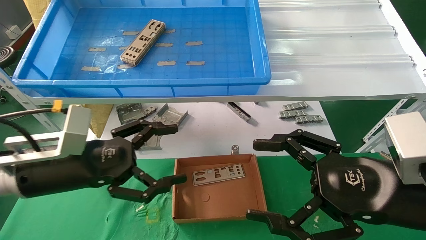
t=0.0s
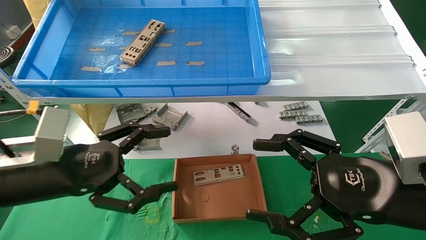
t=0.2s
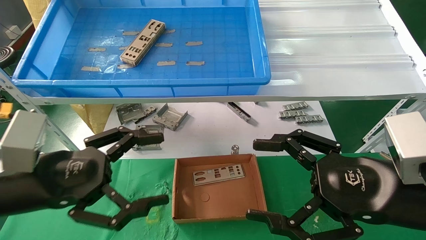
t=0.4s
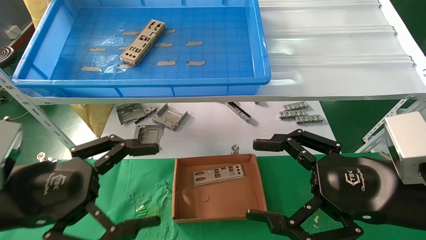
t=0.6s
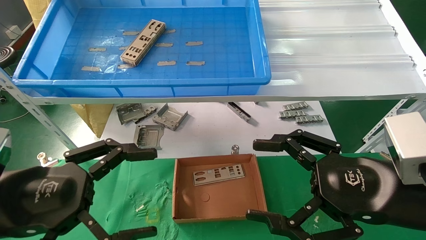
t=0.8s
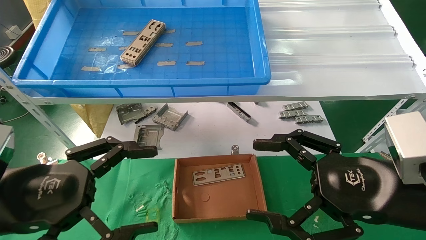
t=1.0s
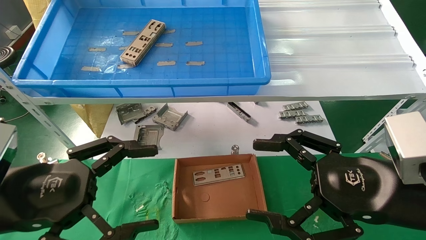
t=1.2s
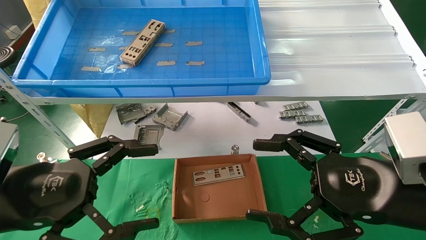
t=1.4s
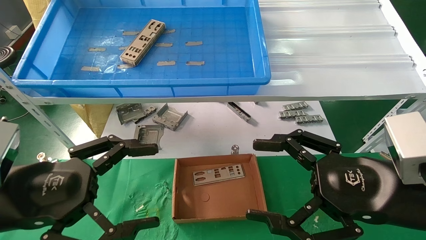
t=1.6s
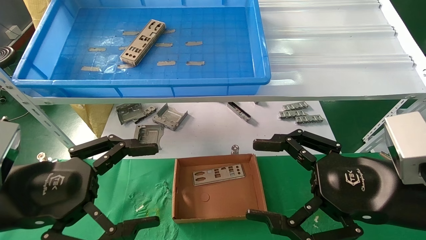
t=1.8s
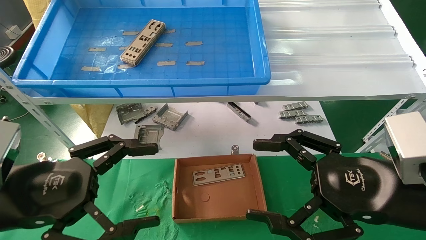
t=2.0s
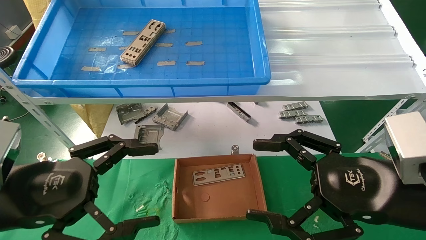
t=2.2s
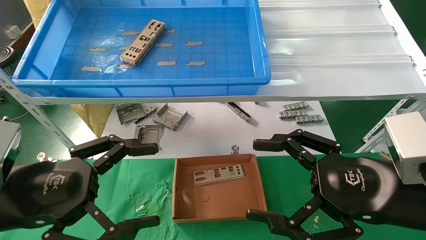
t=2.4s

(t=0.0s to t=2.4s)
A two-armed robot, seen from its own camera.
Task of the whole recording: pick up the parts on the tray and put them in the cardboard box.
t=0.0s - t=1.2s: The left gripper travels backward by approximately 10 cm.
t=1.2s - t=2.4s: The two grippers keep their place.

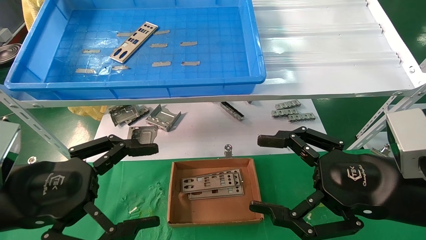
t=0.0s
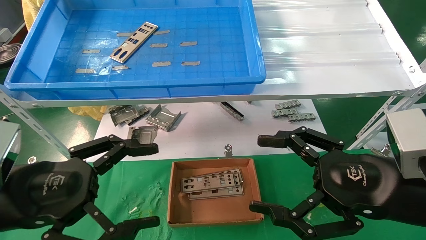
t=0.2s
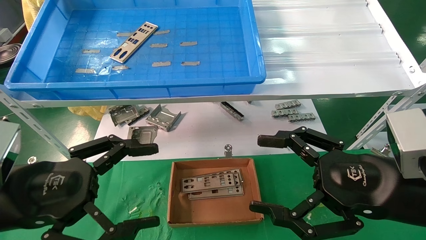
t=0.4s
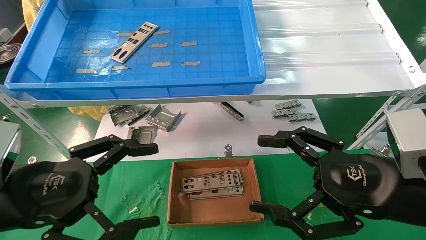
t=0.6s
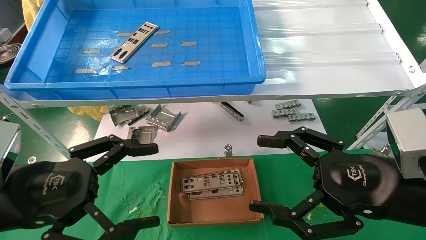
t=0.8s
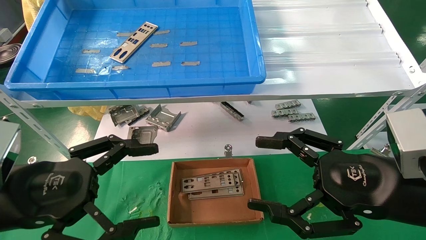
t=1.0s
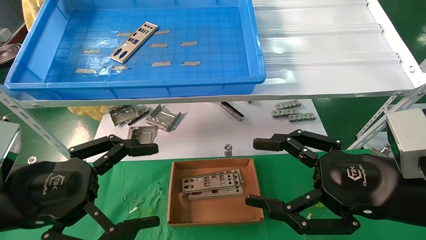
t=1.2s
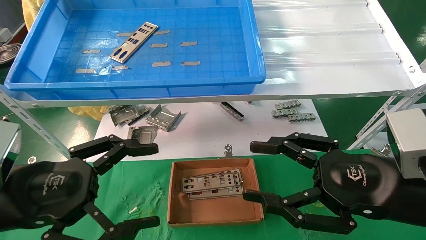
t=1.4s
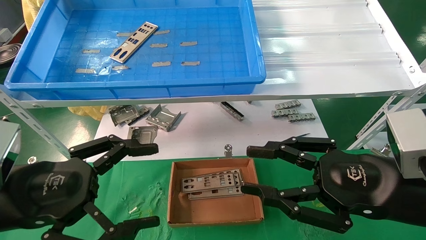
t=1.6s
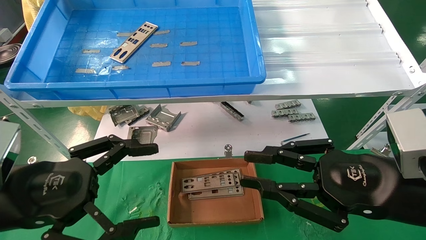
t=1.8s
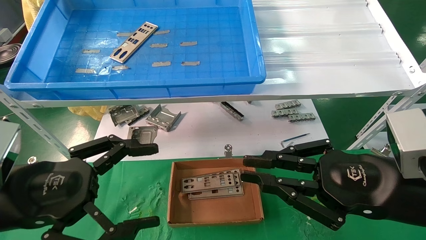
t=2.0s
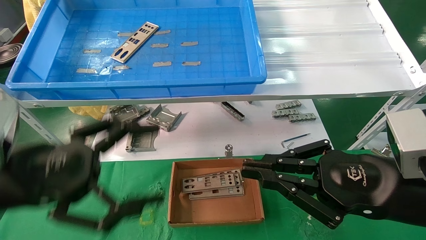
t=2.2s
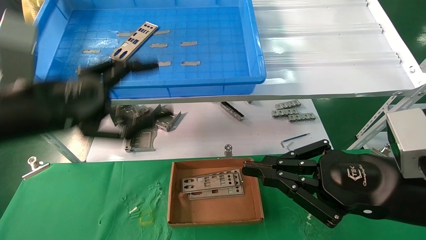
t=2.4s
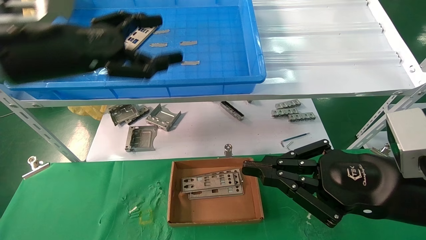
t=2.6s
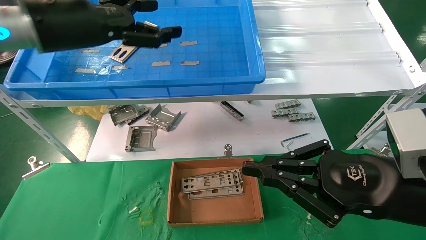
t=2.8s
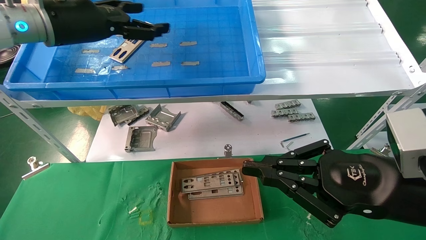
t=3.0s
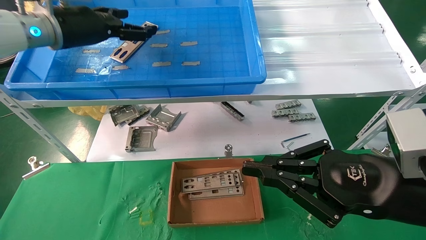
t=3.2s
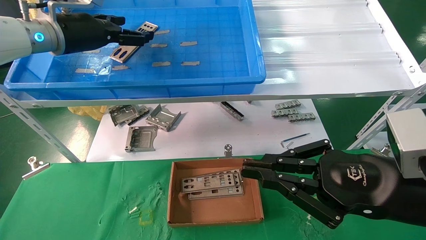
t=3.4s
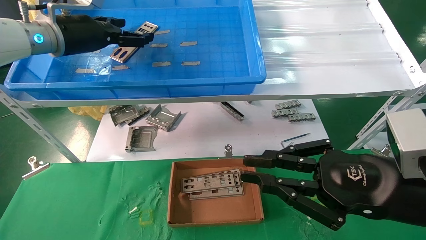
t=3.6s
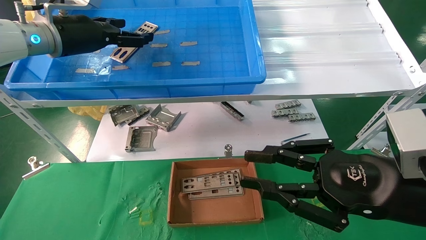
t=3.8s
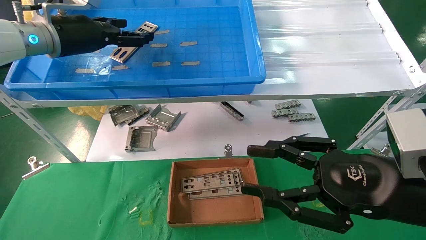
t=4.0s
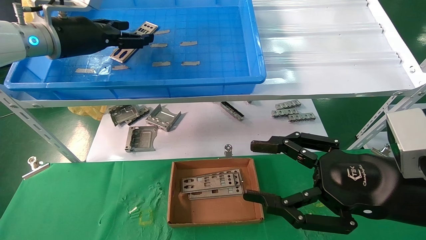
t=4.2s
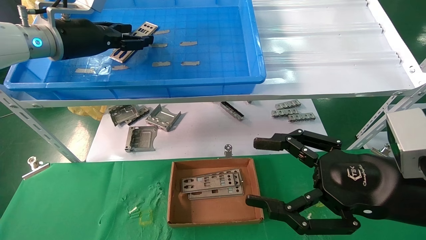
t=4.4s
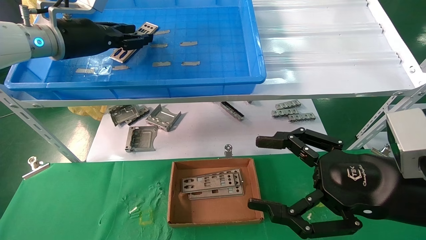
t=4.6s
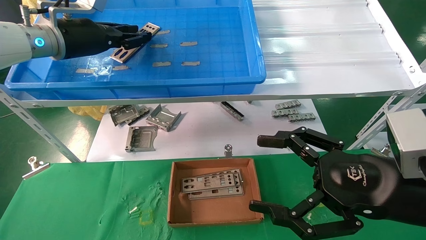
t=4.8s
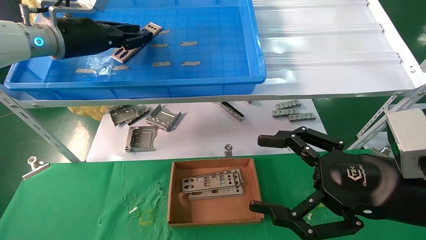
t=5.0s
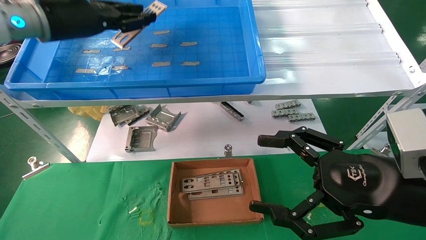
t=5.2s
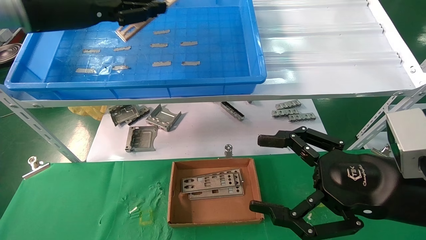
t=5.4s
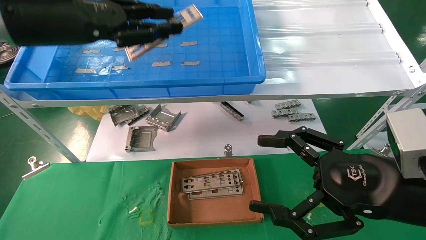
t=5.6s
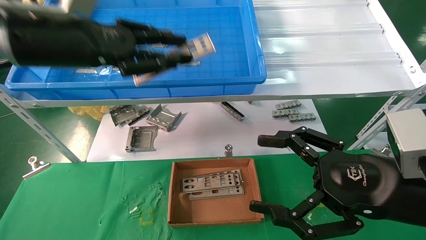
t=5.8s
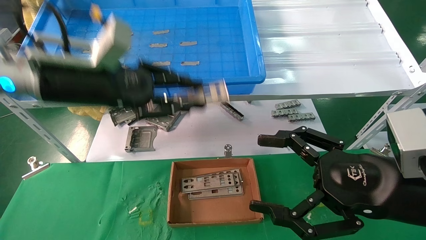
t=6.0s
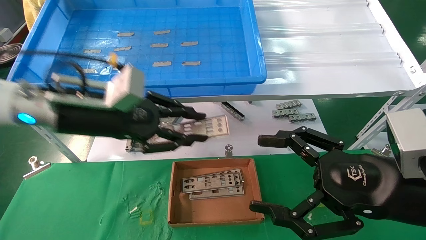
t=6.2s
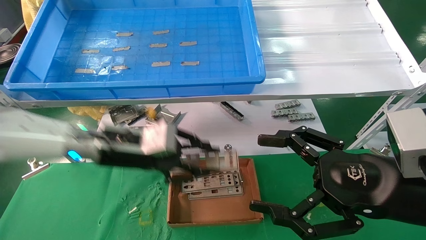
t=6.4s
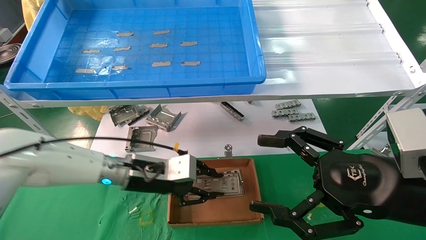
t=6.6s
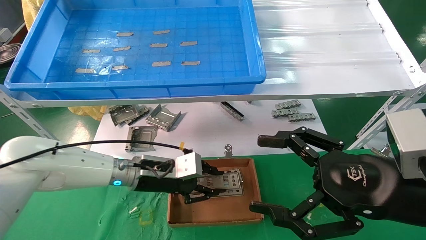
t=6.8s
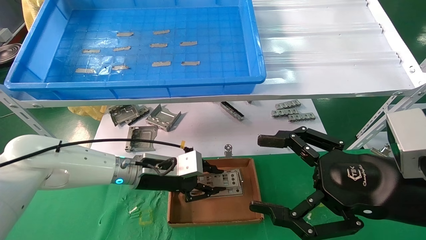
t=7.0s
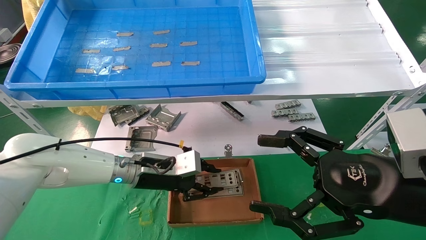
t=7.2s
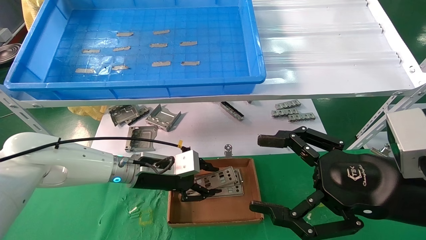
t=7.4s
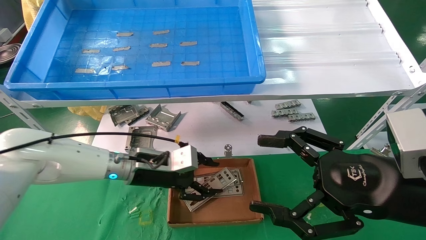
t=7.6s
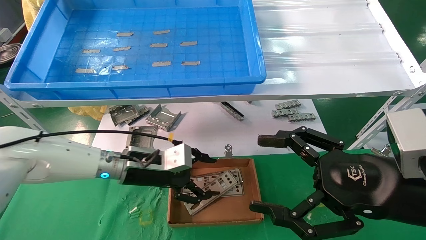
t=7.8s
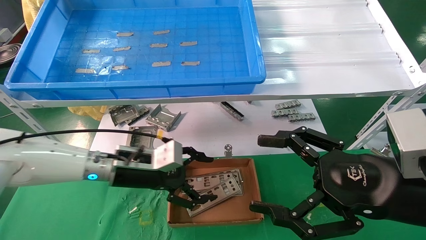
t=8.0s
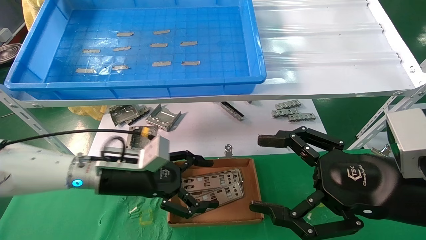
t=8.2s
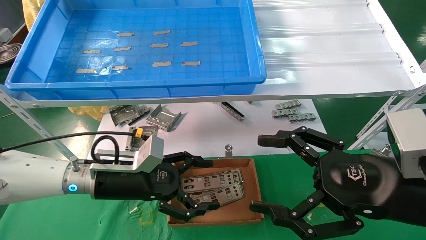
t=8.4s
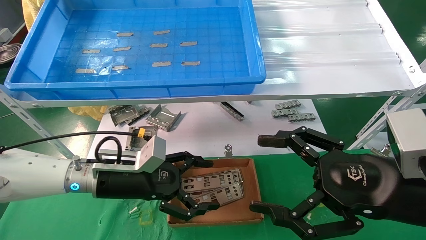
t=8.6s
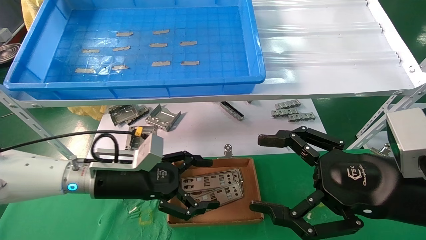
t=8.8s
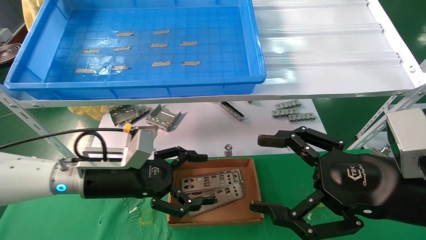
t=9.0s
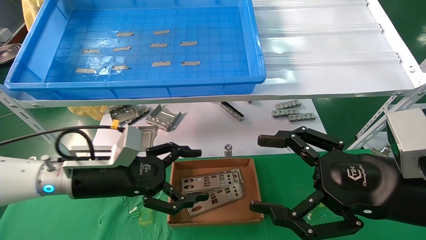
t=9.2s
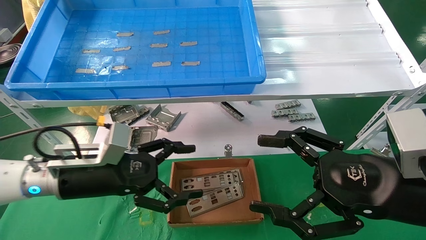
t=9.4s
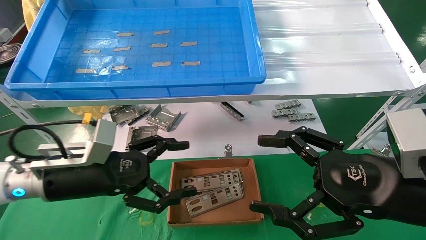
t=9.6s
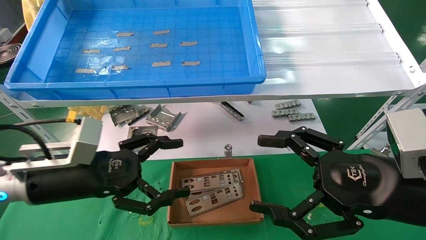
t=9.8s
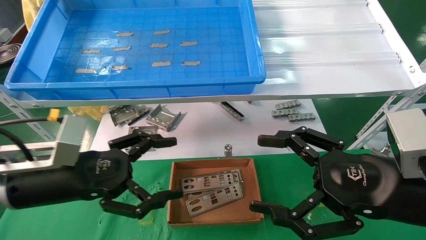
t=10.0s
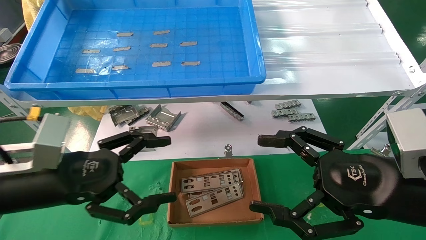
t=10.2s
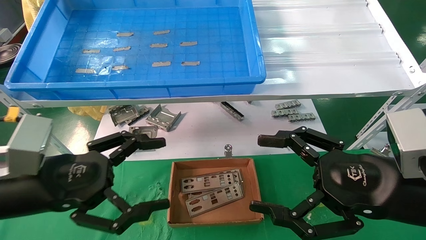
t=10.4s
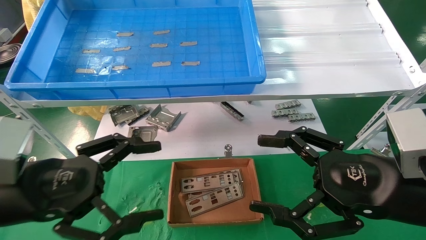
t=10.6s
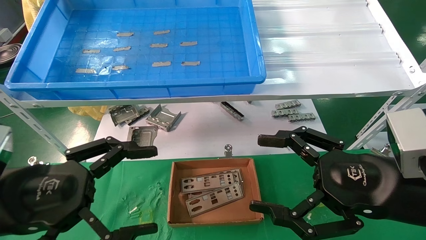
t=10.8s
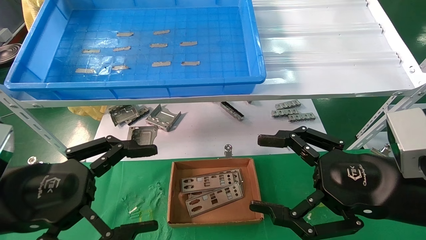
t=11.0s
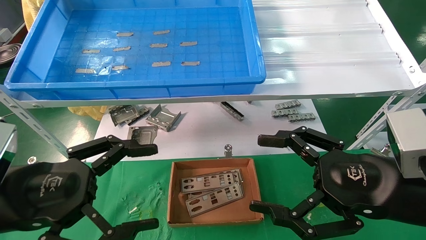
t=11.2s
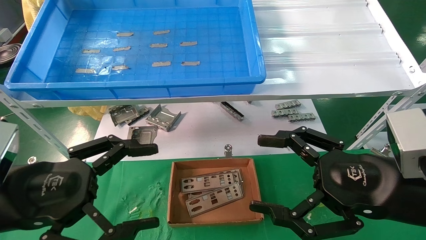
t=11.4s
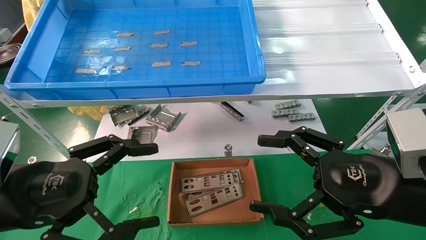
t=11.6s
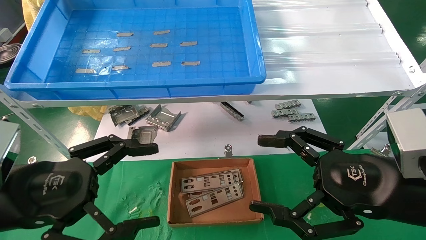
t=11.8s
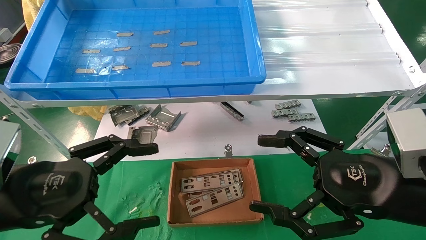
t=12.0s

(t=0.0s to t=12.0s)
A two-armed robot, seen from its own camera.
Task of the whole recording: pick up the parts on the tray and put them in the cardboard box.
Step, t=2.6s - t=4.8s: Pick up the IO bracket from the container box.
Step, t=5.0s - t=7.2s: Place the IO bracket into the ingredient slot.
t=0.0s - t=1.6s: The right gripper closes its fingers.
t=1.6s - t=3.0s: The right gripper closes its fingers. Meanwhile the left gripper travels forward and upward by some 30 cm.
t=3.0s - t=4.4s: The right gripper opens its fingers.
t=4.4s - t=6.0s: The left gripper moves backward, downward and to the right, some 15 cm, and closes.
t=6.0s - t=7.6s: The left gripper moves downward, about 20 cm.
t=7.6s - t=9.0s: The left gripper heads backward, covering approximately 5 cm, and opens its fingers.
t=9.0s - t=10.4s: The left gripper is displaced backward, to the left and upward by some 15 cm.
t=10.4s - t=12.0s: The grippers move only a little.

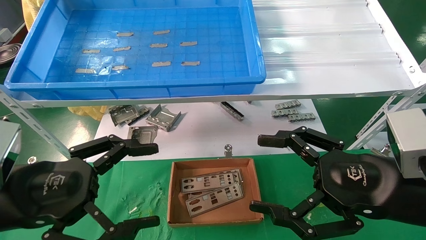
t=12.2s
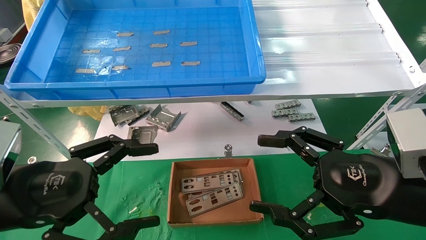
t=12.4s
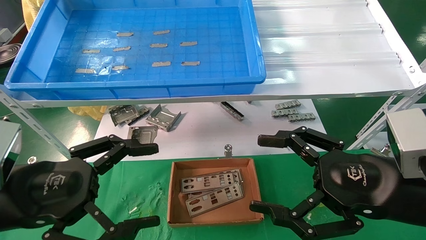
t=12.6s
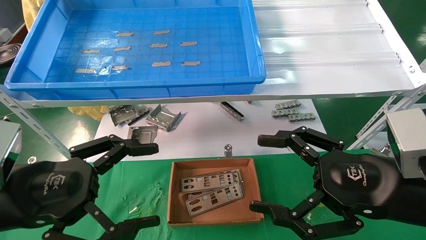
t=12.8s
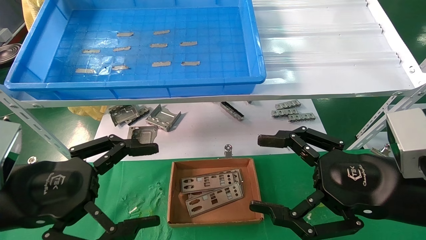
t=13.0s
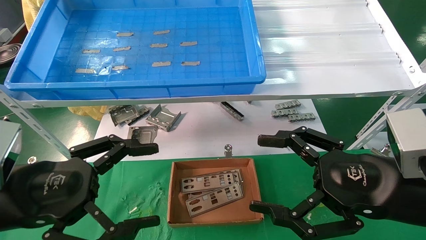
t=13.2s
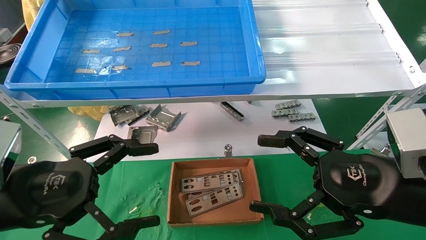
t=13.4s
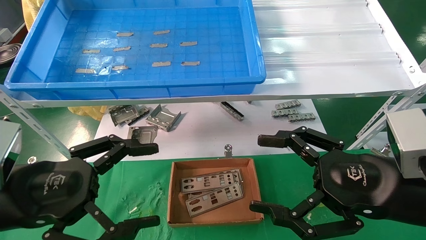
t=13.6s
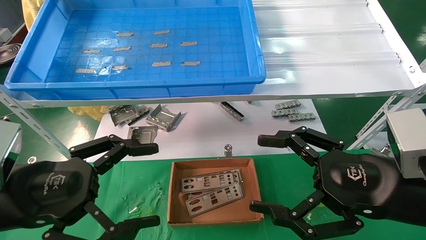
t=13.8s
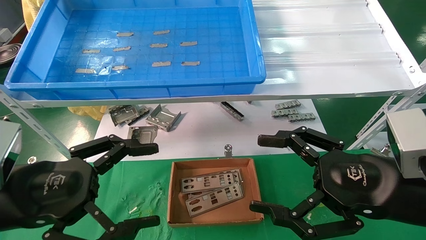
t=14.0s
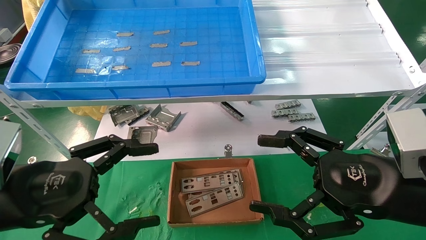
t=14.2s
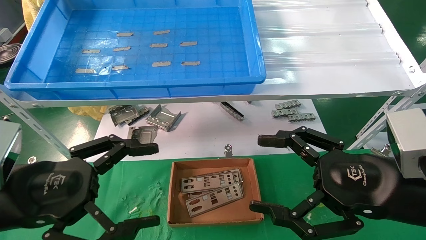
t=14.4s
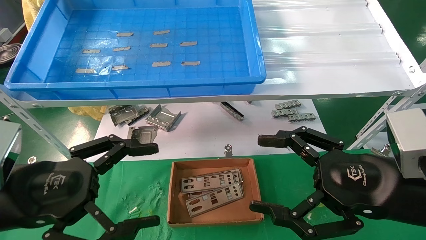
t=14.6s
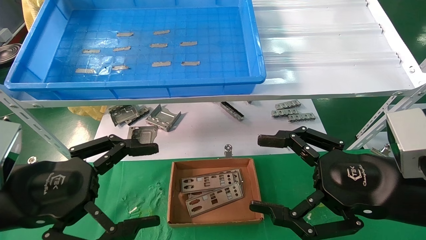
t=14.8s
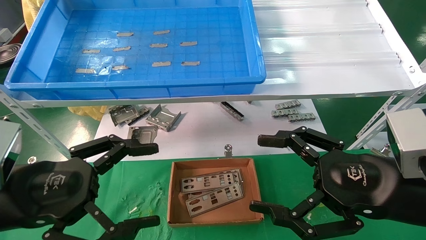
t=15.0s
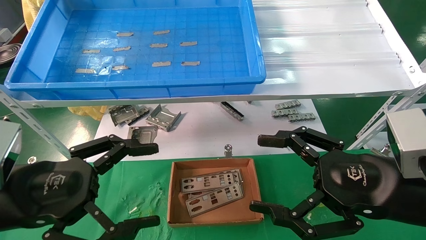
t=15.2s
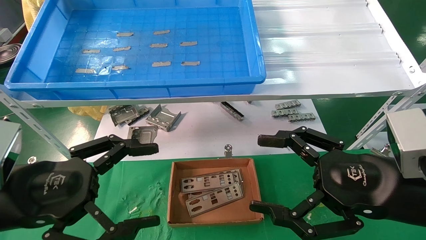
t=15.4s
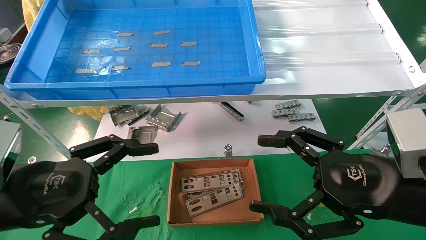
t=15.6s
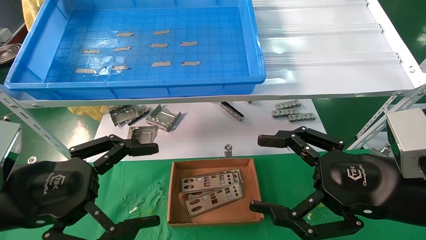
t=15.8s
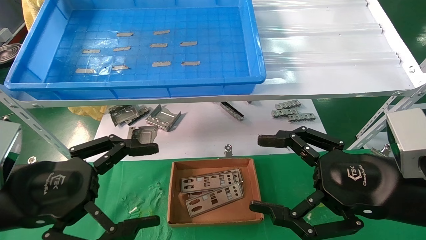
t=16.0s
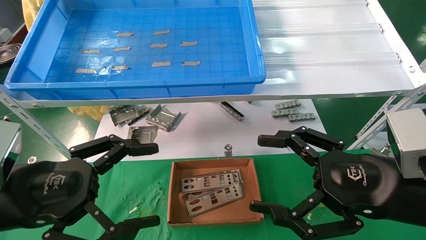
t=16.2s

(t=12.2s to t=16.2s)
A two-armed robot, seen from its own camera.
Task of the whole recording: pick up the parts on the tray and put them in the cardboard box.
t=12.2s - t=16.2s: Both grippers stay about where they are.
